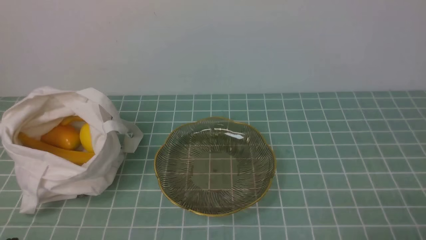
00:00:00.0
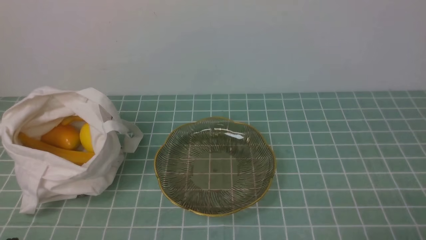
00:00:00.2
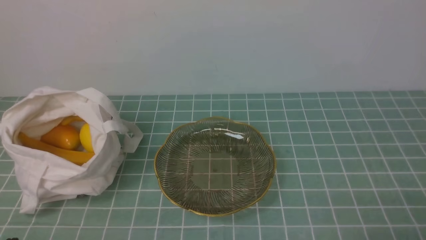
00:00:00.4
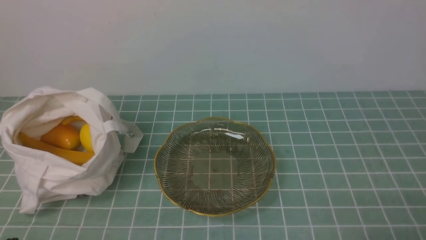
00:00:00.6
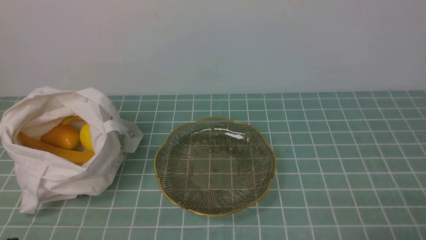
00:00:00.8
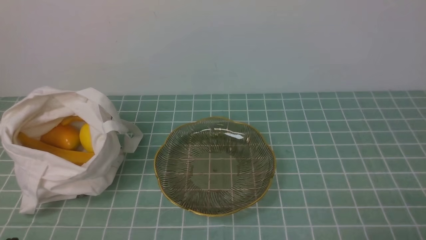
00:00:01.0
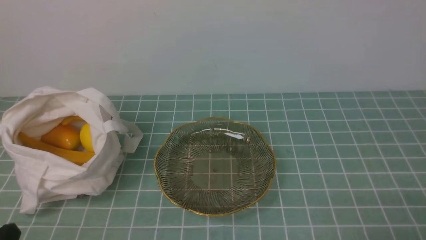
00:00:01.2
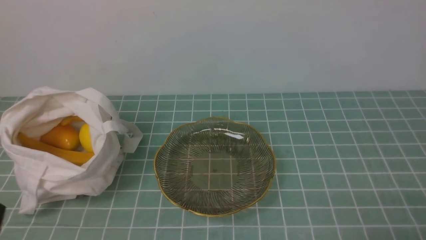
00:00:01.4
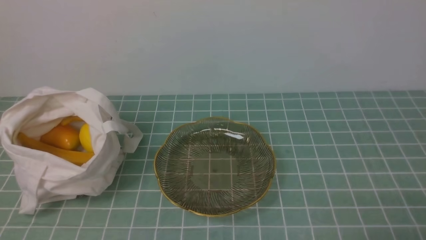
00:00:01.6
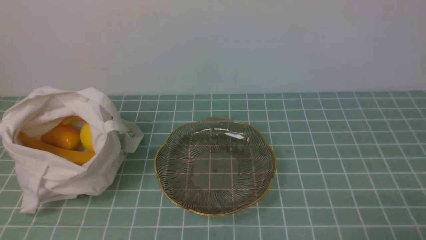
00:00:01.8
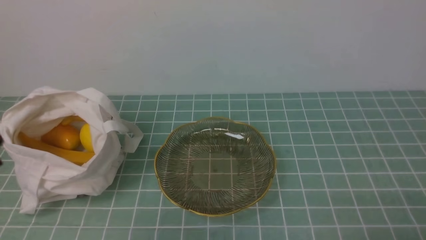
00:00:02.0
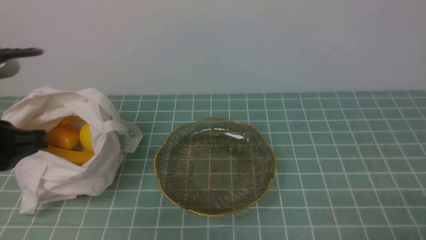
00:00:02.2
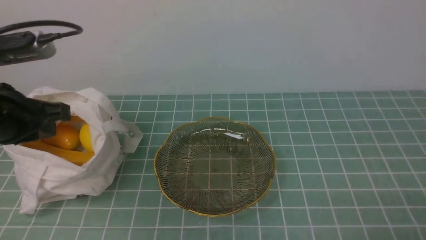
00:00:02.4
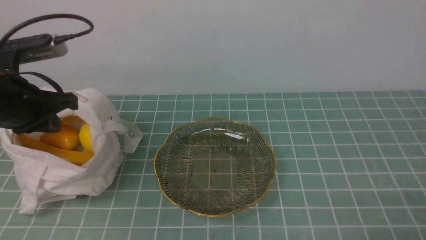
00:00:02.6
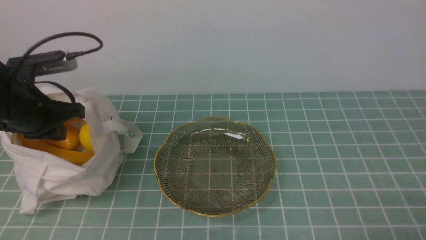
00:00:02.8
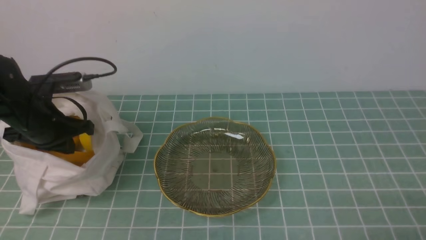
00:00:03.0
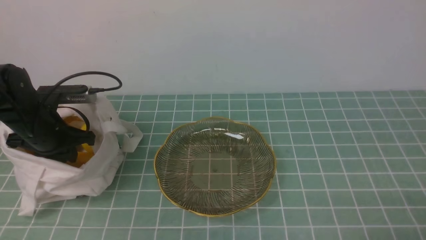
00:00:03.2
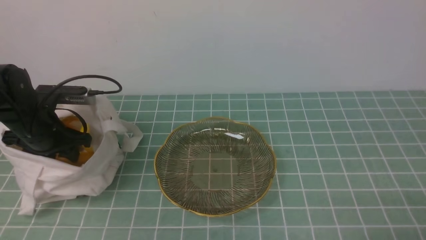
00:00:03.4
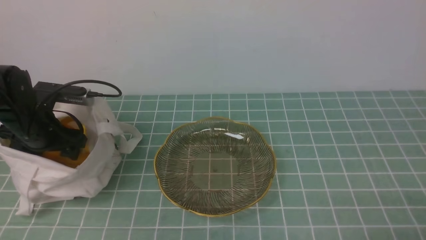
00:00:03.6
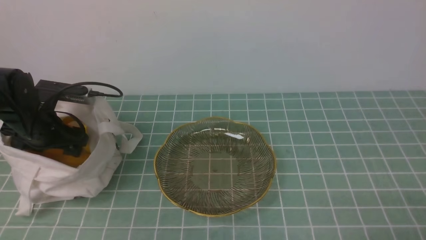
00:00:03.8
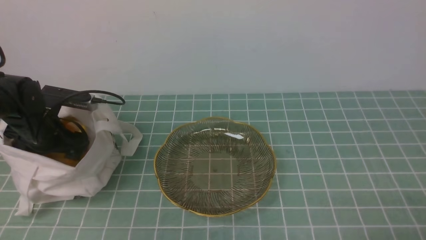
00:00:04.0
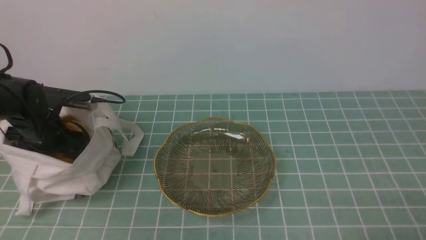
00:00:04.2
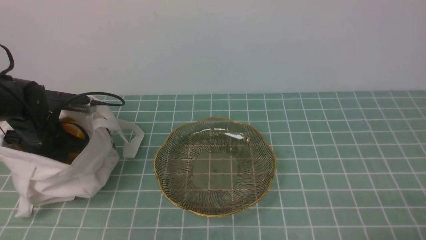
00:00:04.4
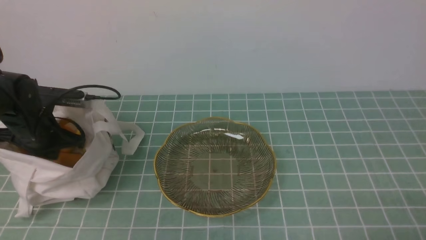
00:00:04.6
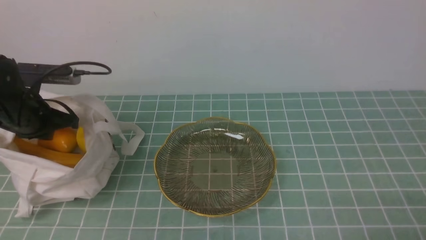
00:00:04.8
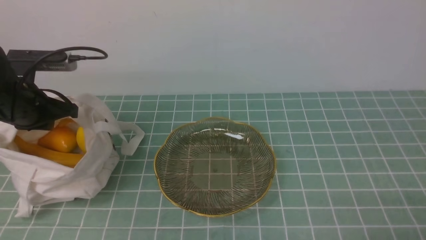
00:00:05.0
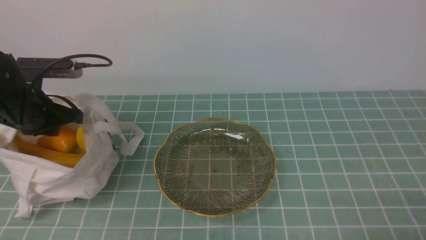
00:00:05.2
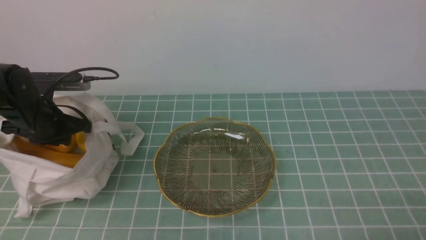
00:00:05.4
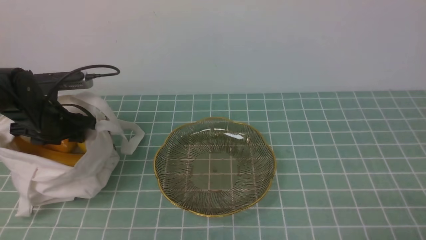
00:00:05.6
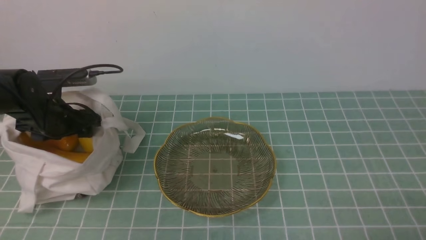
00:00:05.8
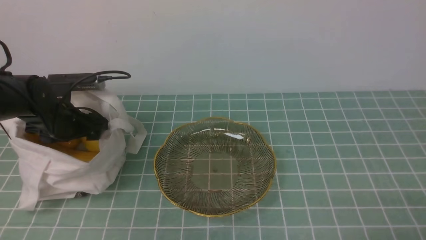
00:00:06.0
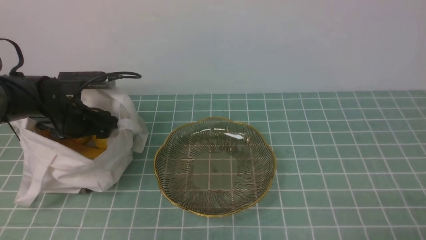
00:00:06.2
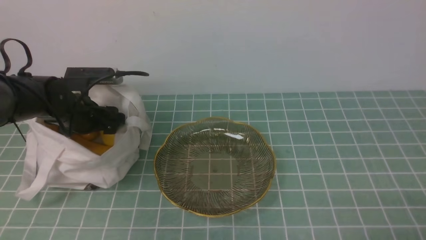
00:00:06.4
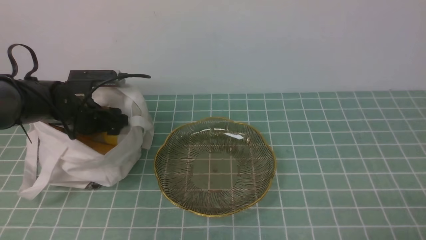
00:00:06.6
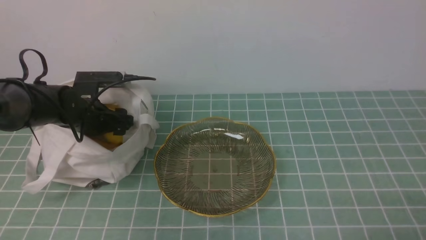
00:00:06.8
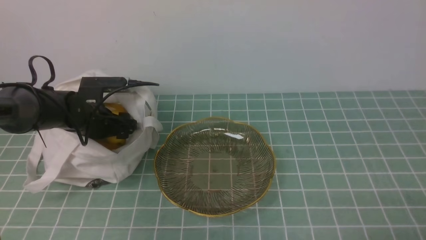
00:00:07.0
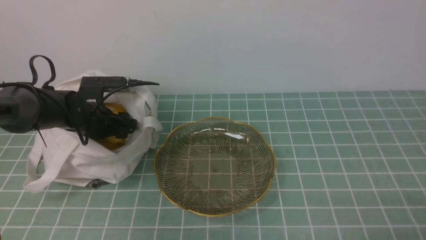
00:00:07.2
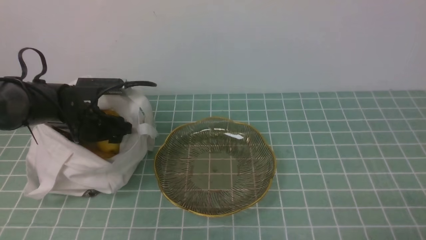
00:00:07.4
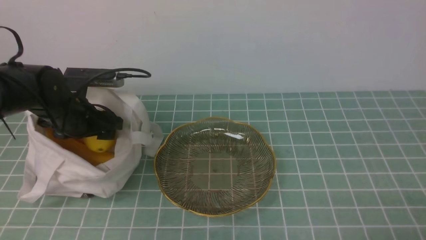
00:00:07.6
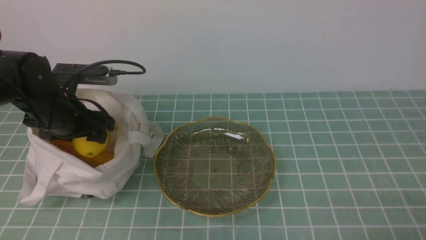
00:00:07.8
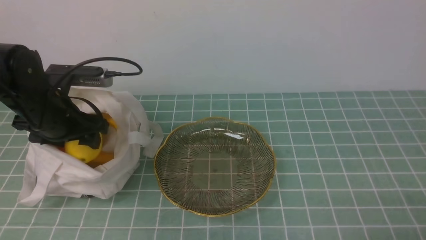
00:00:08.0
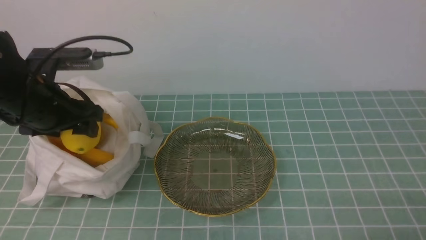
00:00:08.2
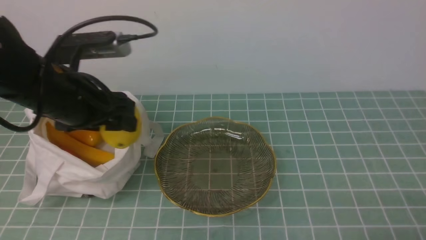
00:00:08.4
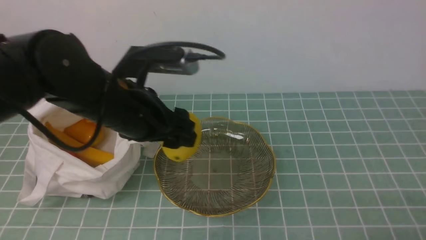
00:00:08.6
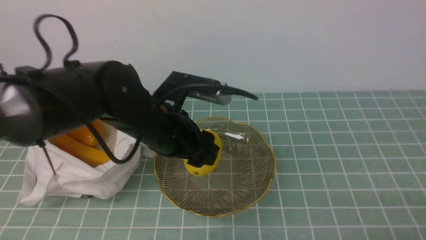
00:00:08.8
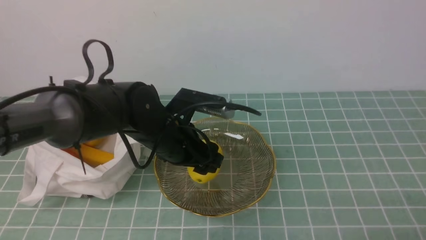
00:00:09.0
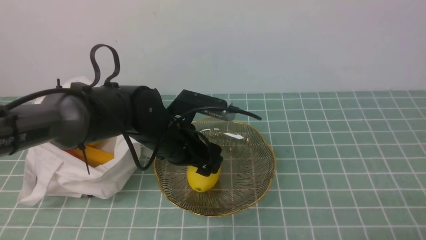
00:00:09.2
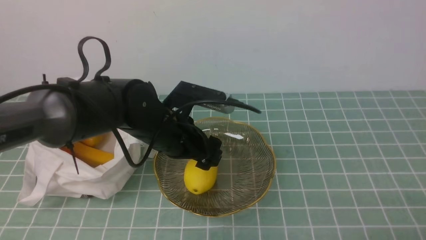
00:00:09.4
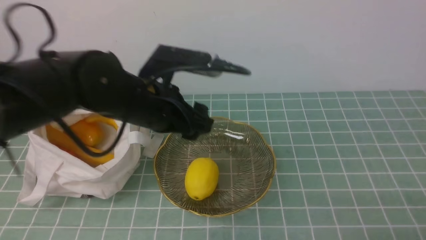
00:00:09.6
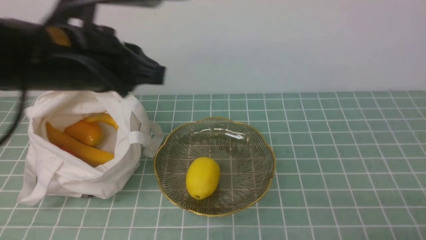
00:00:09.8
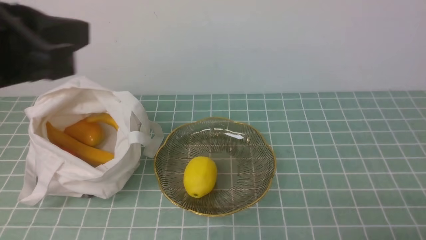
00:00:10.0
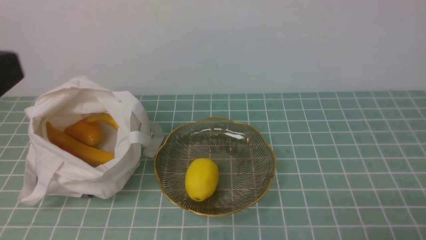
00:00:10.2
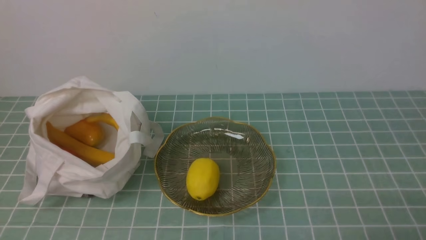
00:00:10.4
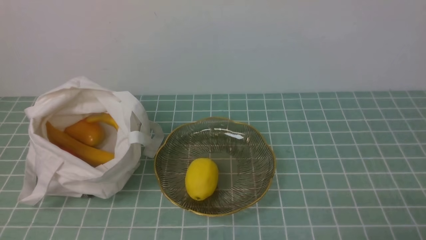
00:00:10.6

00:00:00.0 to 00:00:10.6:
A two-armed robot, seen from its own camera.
Step, 00:00:00.0 to 00:00:07.4: use the left arm to grab a lemon from the bag.
Step, 00:00:07.6 to 00:00:09.4: use the left arm to put the lemon into the empty plate on the right.
00:00:01.6 to 00:00:03.0: The left gripper is displaced forward by some 30 cm.
00:00:03.0 to 00:00:04.6: The left gripper opens, then closes again.
00:00:04.6 to 00:00:06.0: The left gripper opens.
00:00:06.0 to 00:00:07.6: The grippers move only a little.
00:00:07.6 to 00:00:09.0: The left gripper heads to the right, covering roughly 15 cm.
00:00:09.0 to 00:00:10.6: The left gripper travels backward, to the left and upward by about 40 cm, and closes up.

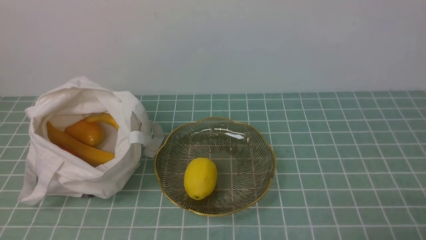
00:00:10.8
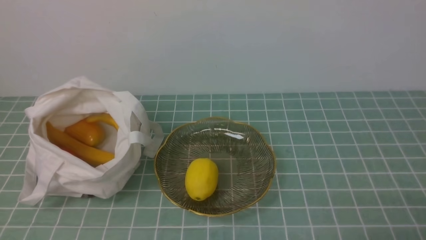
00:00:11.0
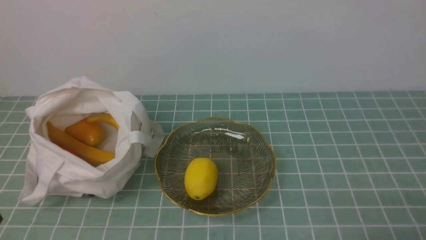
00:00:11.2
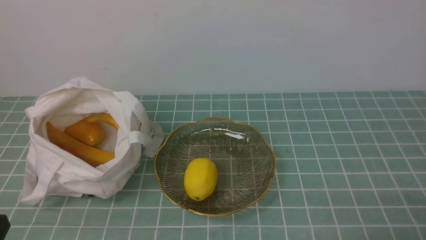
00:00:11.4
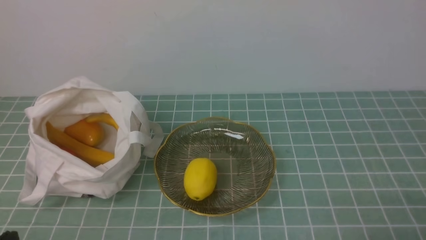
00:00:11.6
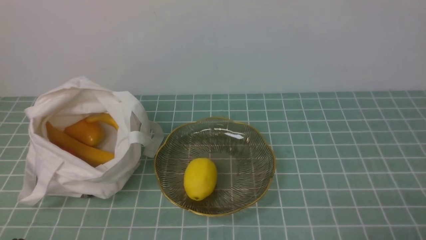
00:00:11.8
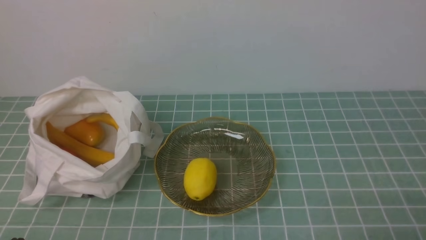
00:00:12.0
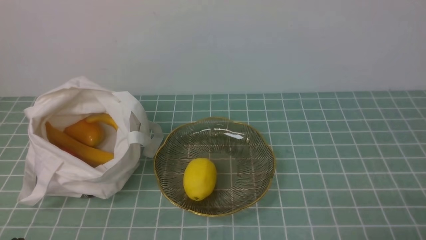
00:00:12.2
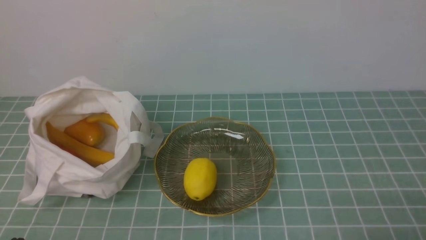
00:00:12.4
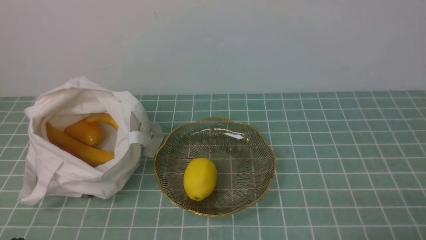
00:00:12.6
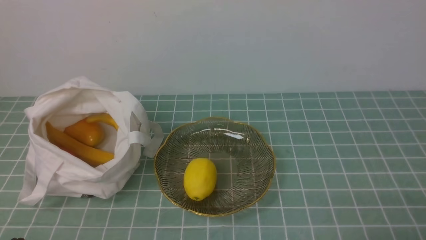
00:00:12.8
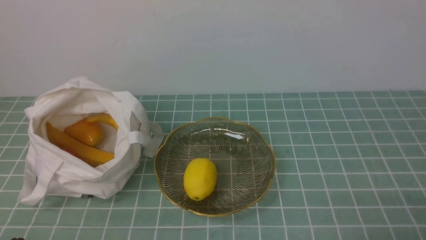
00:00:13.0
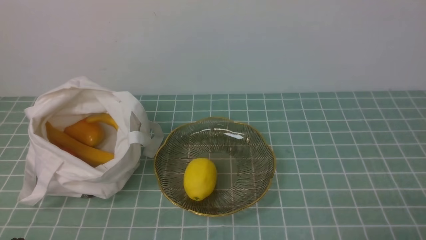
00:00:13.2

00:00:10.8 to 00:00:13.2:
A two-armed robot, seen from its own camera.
00:00:12.0 to 00:00:13.2: Neither gripper changes place.
